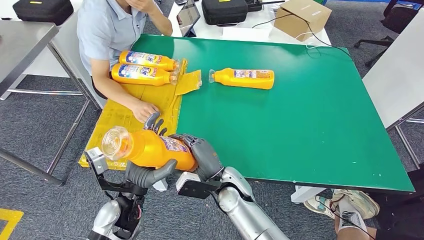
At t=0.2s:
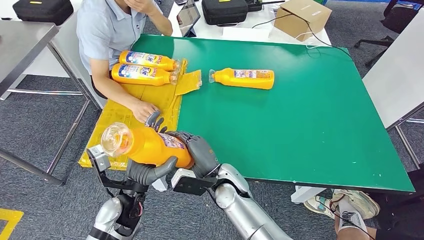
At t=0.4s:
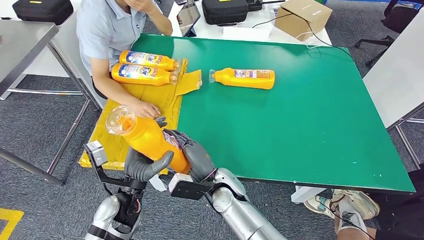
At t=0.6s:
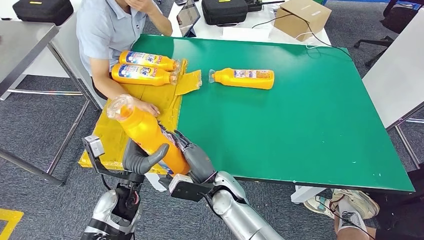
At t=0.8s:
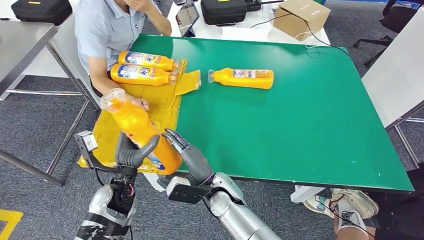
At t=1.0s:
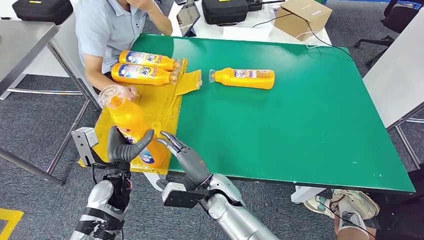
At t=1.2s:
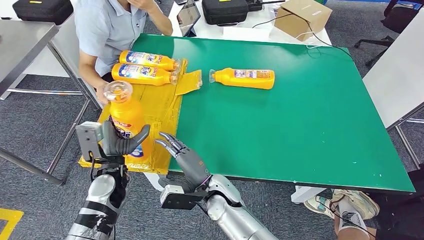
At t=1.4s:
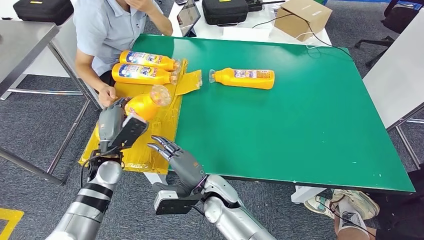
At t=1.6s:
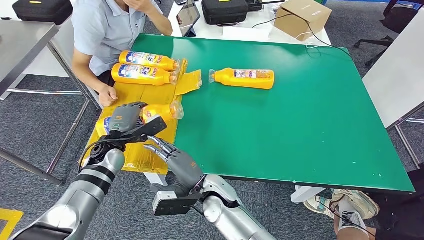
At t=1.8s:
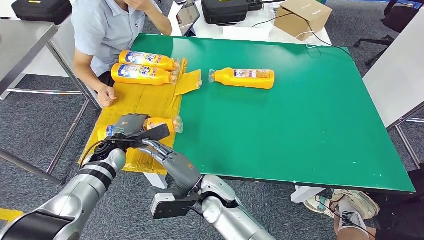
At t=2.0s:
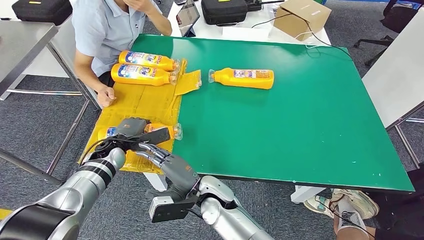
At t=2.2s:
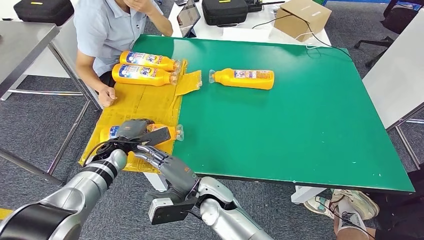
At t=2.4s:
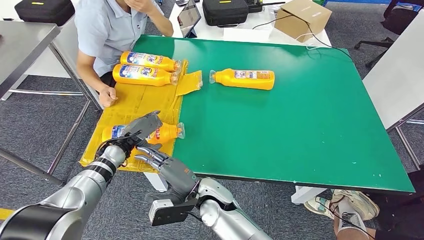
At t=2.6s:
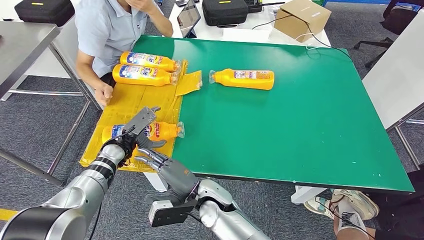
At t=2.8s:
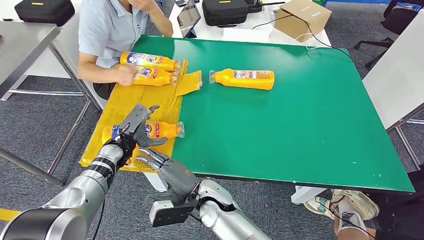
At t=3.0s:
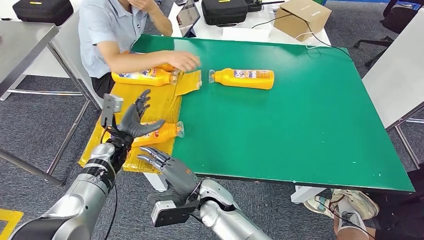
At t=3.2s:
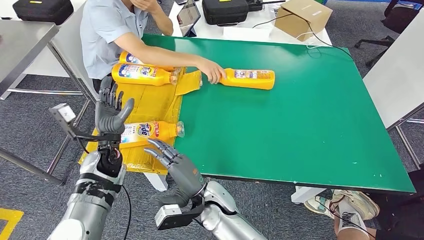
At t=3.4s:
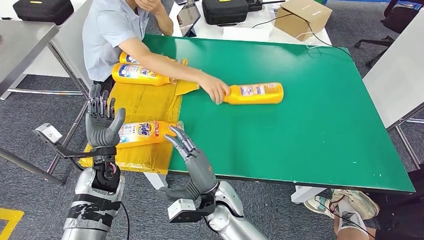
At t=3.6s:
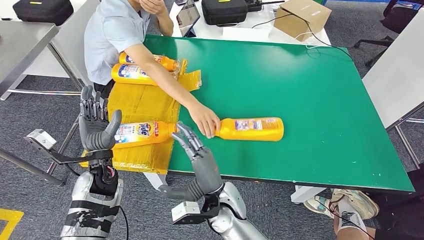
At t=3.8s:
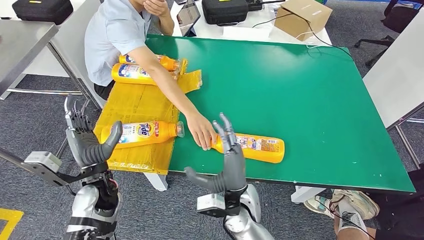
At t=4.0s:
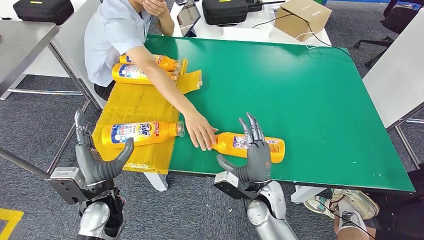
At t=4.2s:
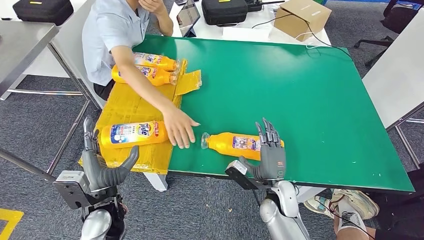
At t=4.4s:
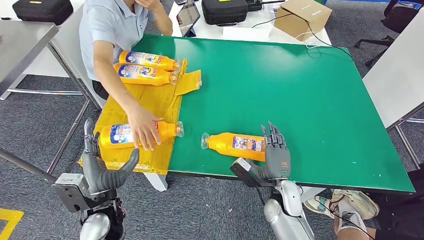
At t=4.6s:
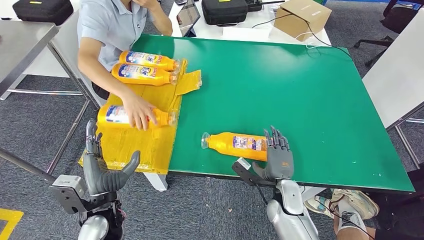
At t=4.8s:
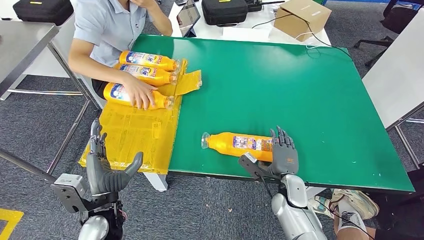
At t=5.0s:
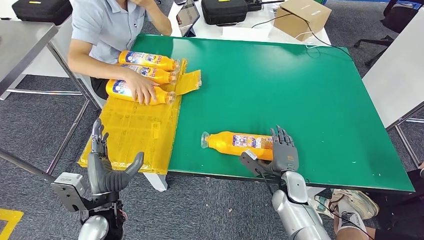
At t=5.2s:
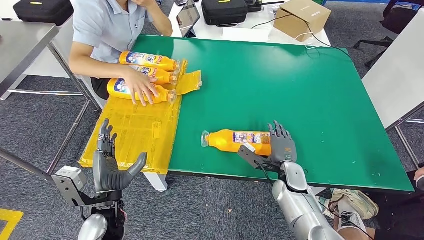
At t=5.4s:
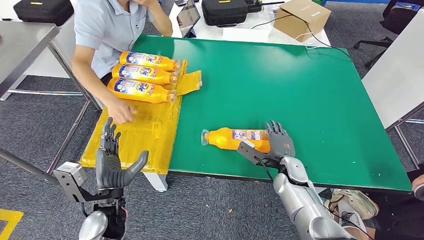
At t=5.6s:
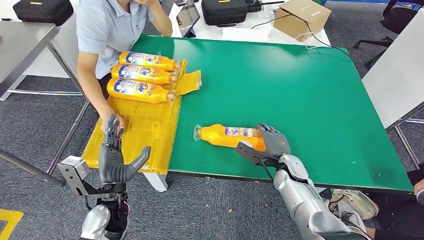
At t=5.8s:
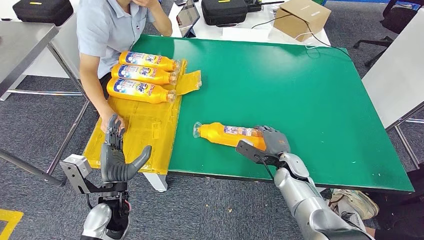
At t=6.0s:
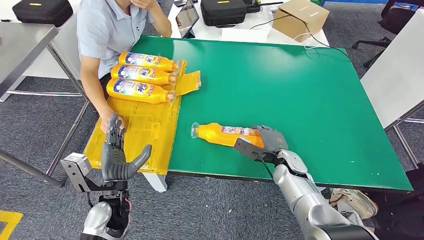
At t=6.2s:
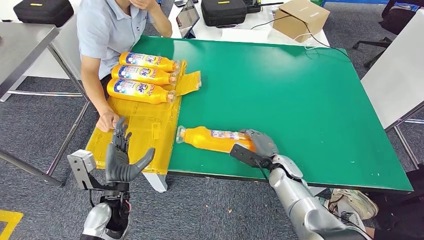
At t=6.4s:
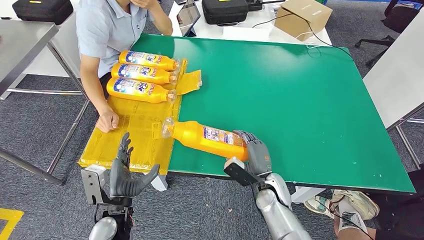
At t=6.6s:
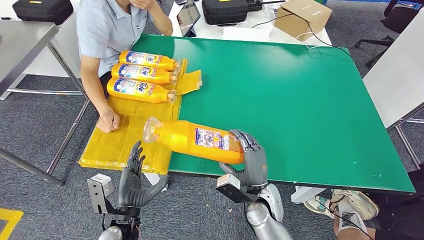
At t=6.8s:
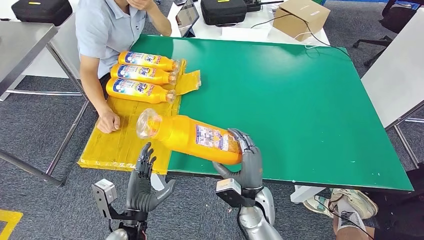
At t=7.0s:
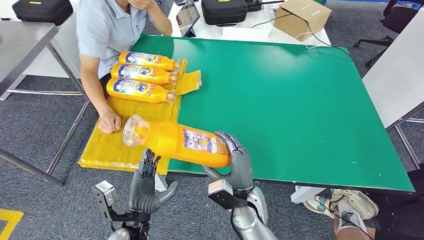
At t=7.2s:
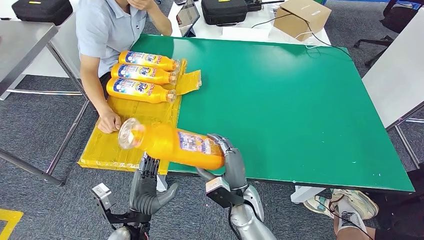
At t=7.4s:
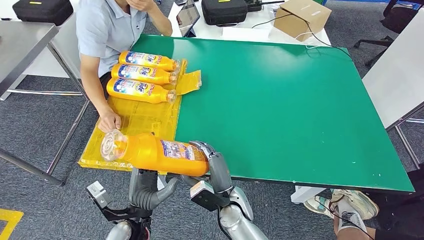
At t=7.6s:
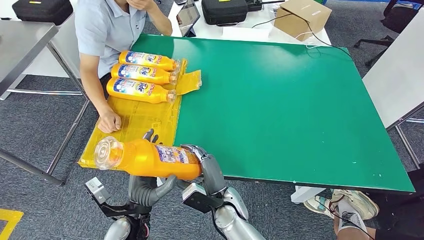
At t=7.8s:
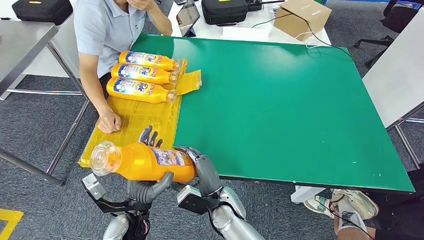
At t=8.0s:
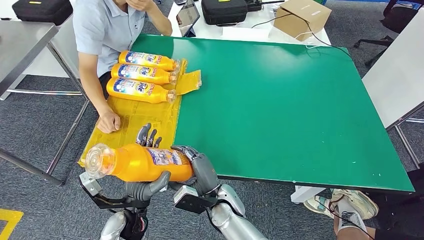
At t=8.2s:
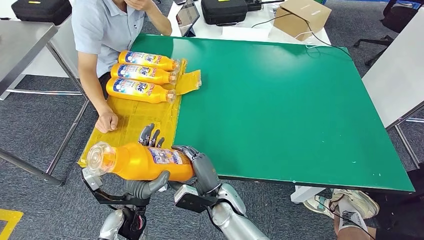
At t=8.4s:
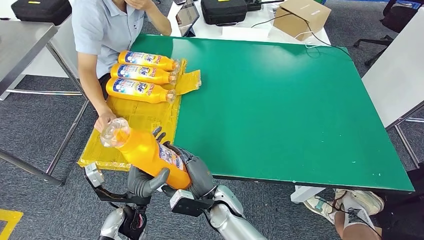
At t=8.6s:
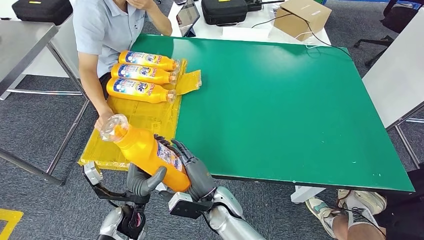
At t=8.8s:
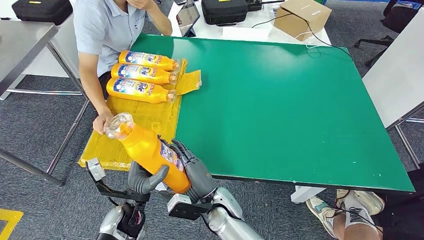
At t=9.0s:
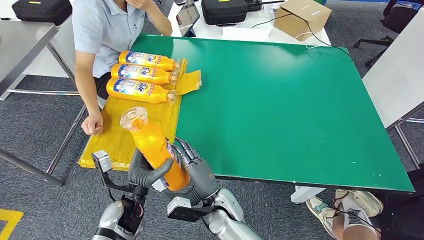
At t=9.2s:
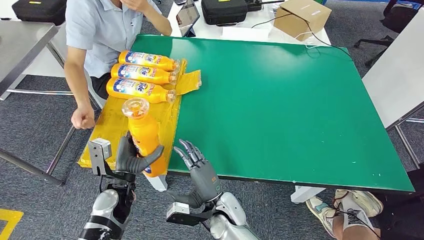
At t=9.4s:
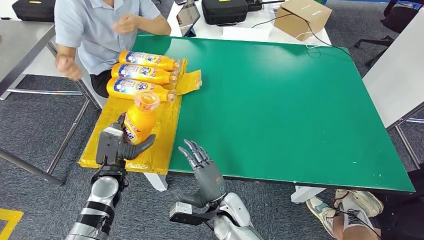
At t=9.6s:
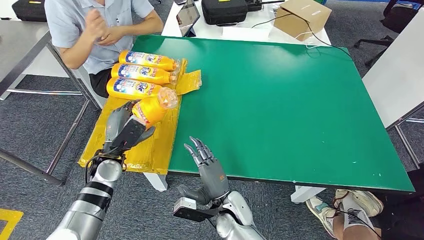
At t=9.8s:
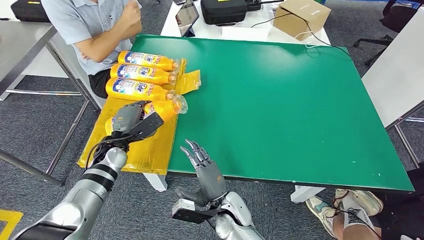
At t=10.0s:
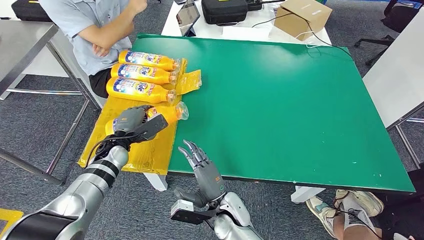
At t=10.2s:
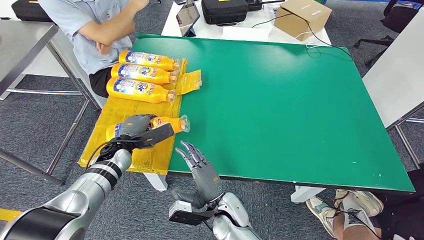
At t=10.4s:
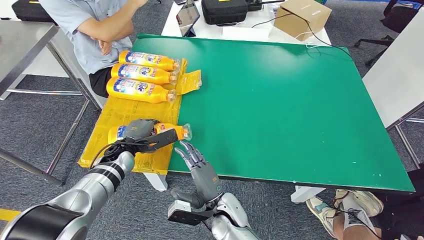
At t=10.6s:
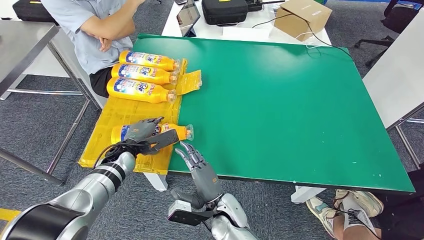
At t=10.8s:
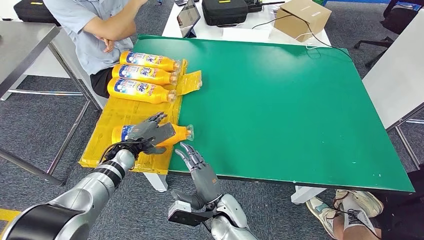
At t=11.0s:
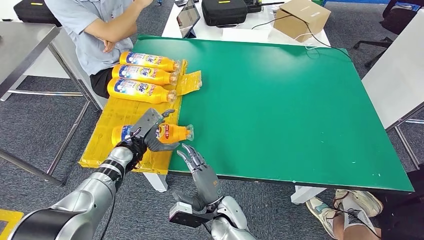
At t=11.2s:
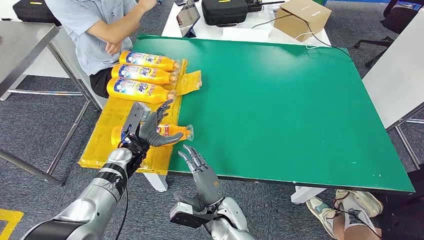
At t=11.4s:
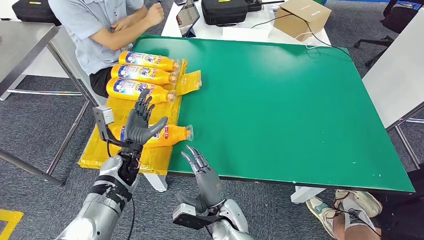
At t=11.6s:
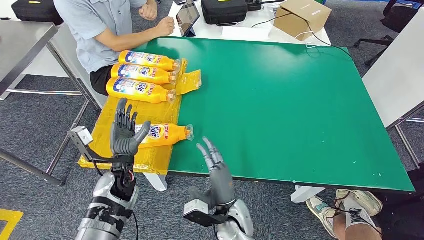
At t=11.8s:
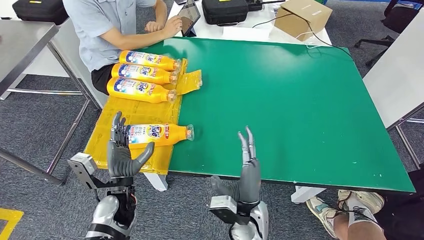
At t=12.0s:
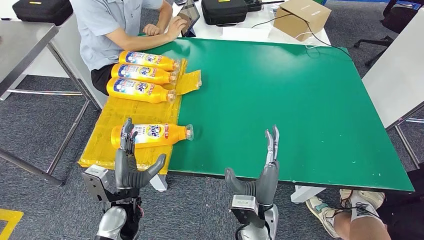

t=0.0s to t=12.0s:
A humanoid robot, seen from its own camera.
Step, t=0.2s to t=3.6s: Flip the fast-moving consumer goods bottle to the front side.
Step, t=6.2s to t=9.2s: Pick up the fast-moving consumer goods bottle from the table.
t=0.0s to t=1.6s: The left hand is displaced forward and to the left by roughly 15 cm.
t=7.6s to t=9.0s: There are only small adjustments of the hands.
t=9.0s to t=10.4s: The left hand shifts some 15 cm forward.

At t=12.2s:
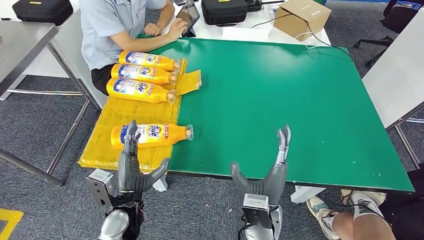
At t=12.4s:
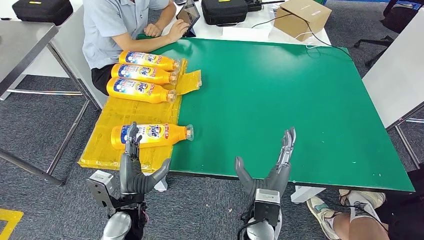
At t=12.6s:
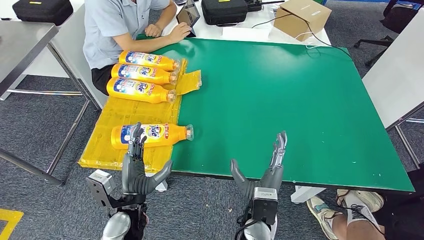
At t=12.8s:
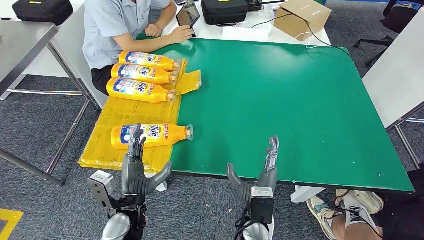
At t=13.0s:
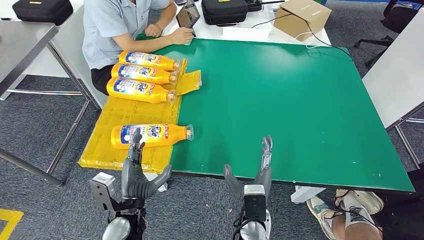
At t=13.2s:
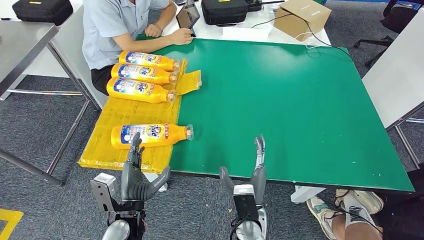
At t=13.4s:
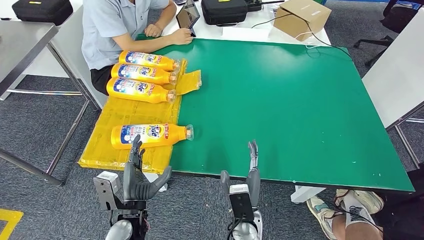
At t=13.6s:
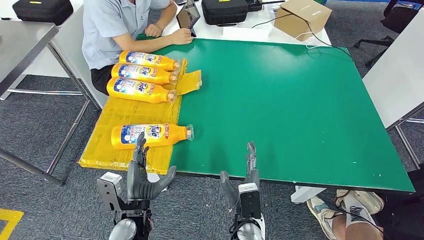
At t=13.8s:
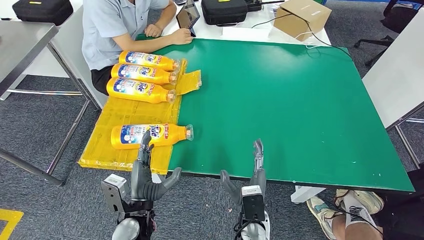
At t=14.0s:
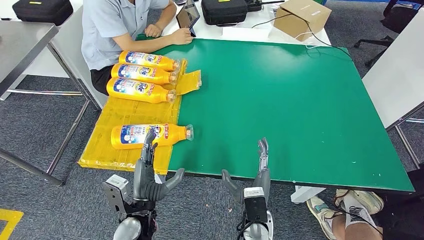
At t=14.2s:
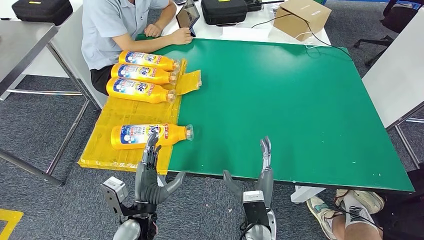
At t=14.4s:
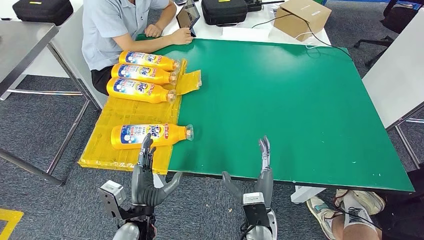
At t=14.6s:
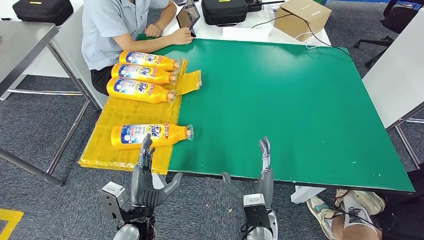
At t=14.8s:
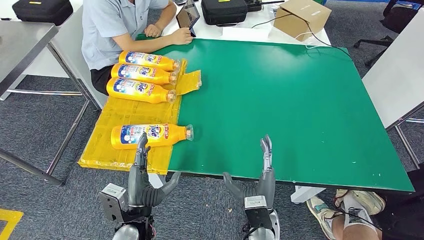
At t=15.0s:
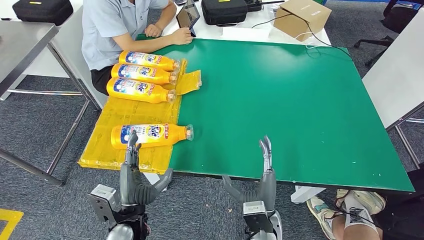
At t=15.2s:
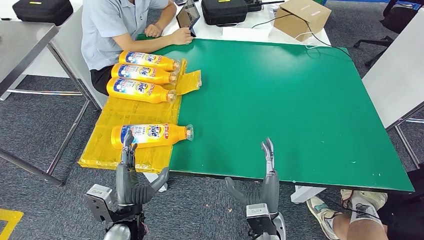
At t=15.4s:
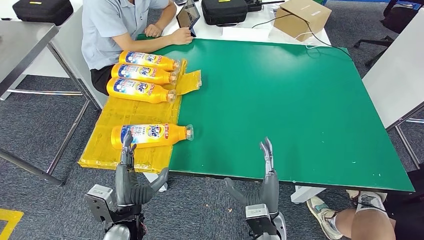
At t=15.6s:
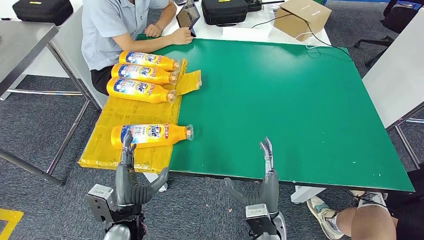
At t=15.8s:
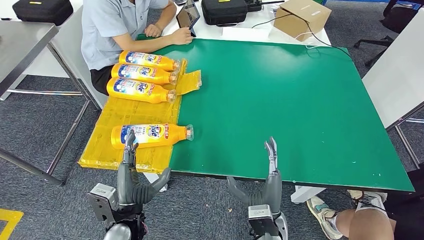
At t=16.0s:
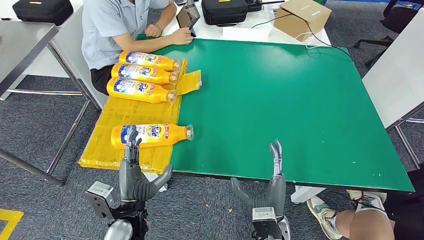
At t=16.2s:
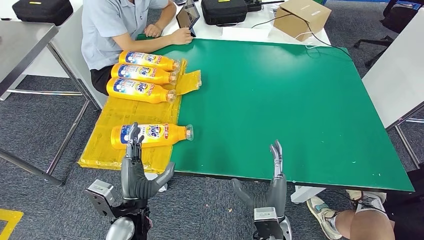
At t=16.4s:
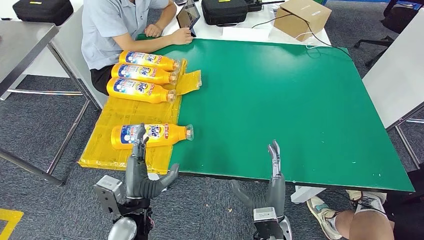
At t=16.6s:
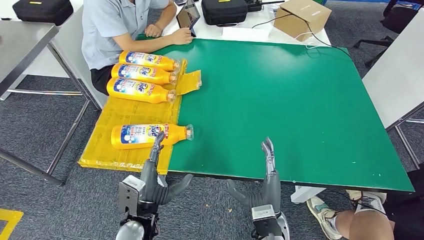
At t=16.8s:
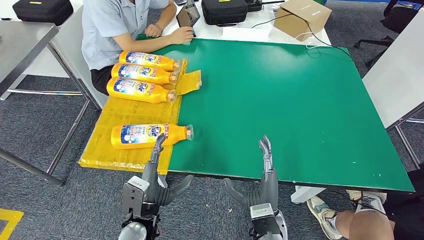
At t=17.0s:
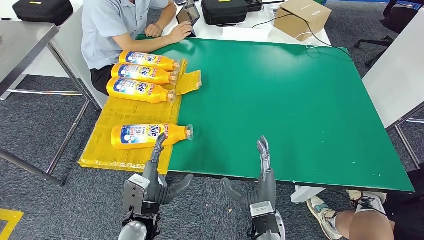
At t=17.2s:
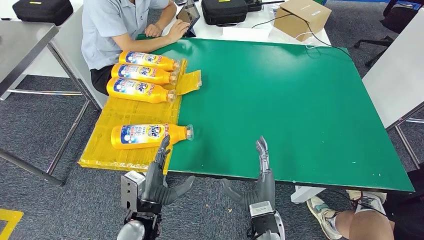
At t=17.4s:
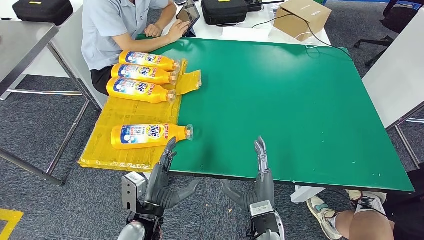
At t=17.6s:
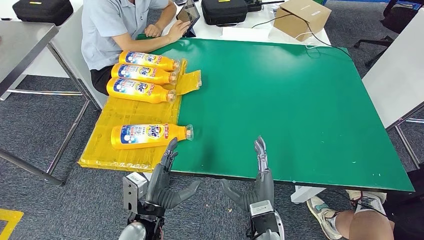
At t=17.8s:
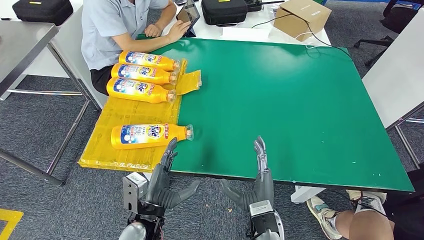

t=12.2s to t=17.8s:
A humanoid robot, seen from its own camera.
Step, t=12.2s to t=17.8s: Flip the fast-moving consumer goods bottle to the front side.
t=12.2s to t=13.6s: The right hand is displaced downward by approximately 5 cm.
t=13.6s to t=15.0s: There are only small adjustments of the hands.
t=15.0s to t=16.4s: The hands stay close to where they were, moving slightly.
t=16.4s to t=17.8s: The hands stay close to where they were, moving slightly.
